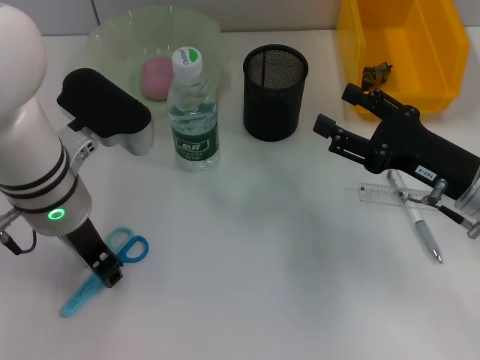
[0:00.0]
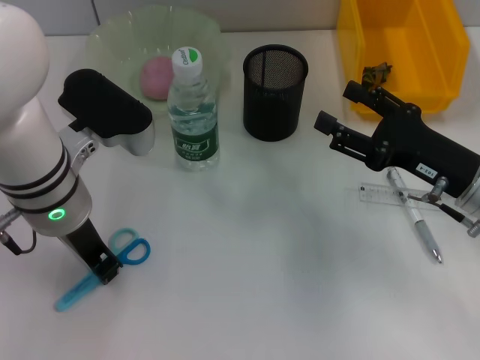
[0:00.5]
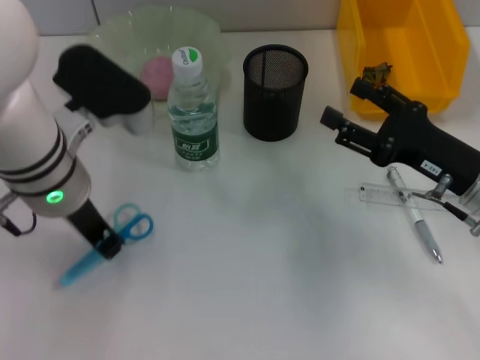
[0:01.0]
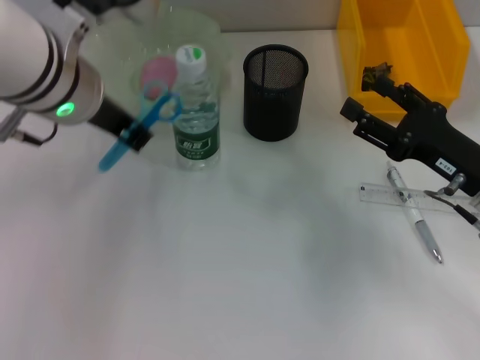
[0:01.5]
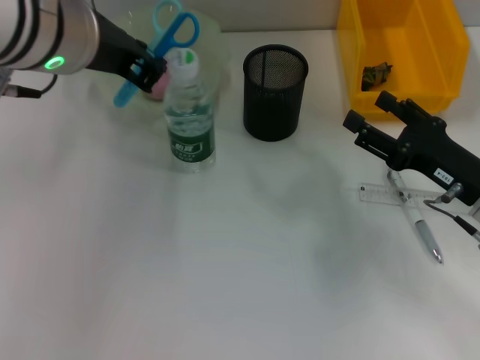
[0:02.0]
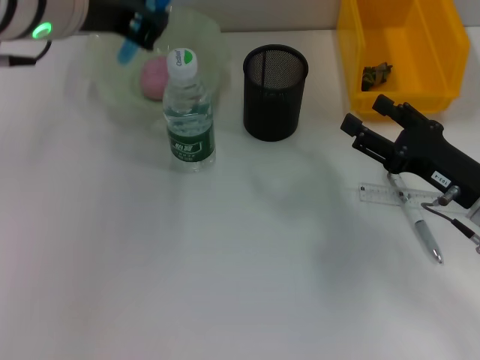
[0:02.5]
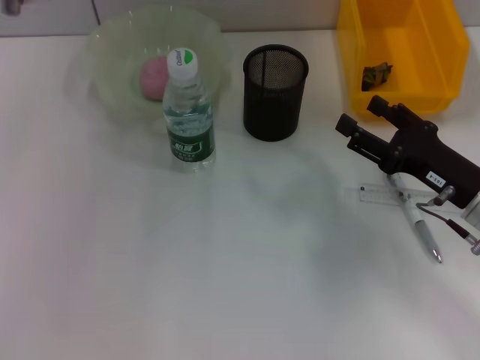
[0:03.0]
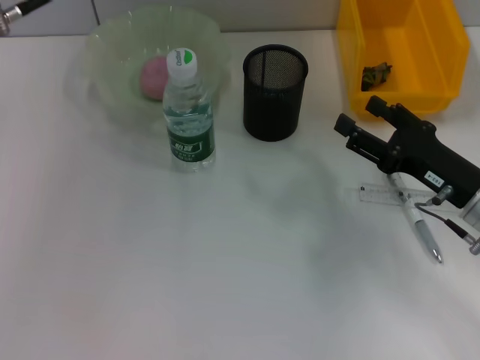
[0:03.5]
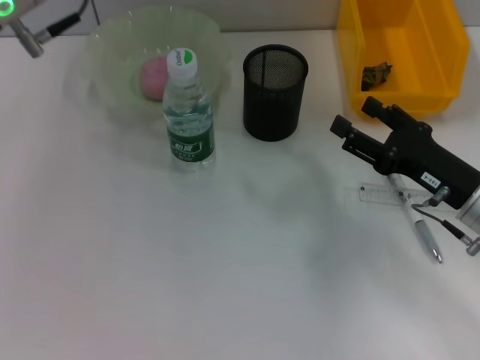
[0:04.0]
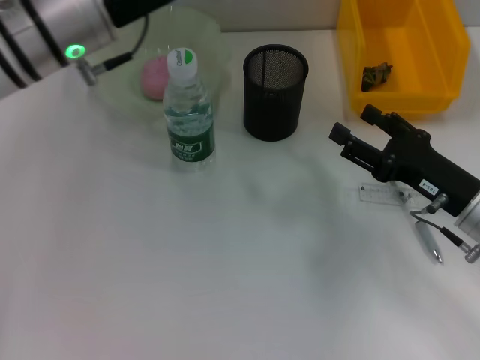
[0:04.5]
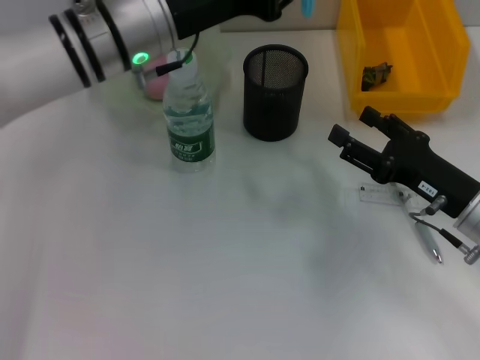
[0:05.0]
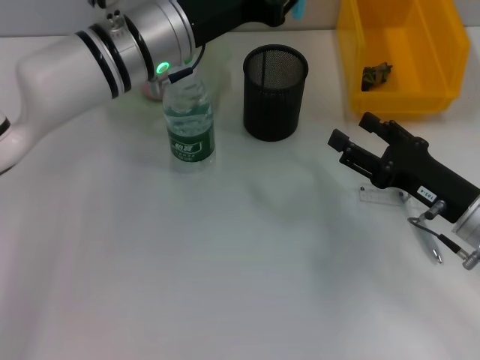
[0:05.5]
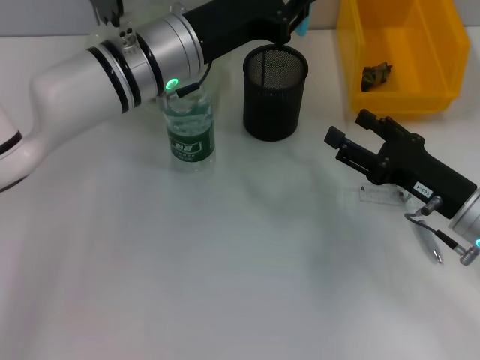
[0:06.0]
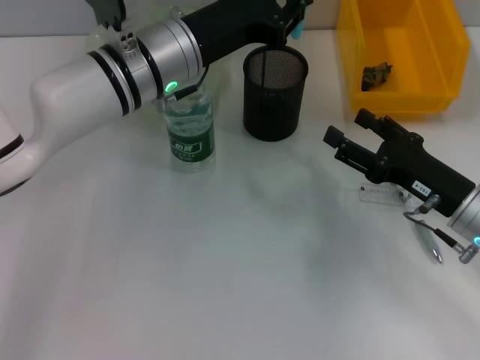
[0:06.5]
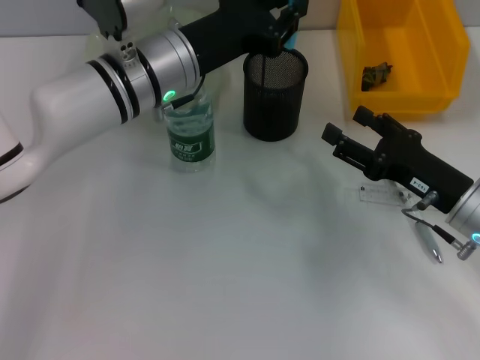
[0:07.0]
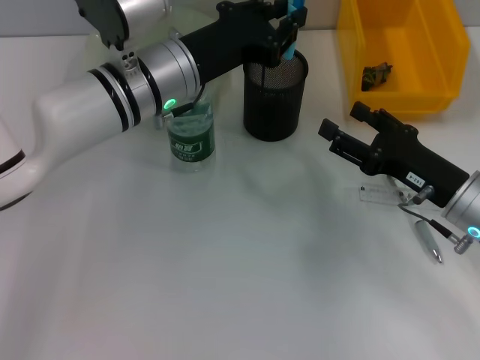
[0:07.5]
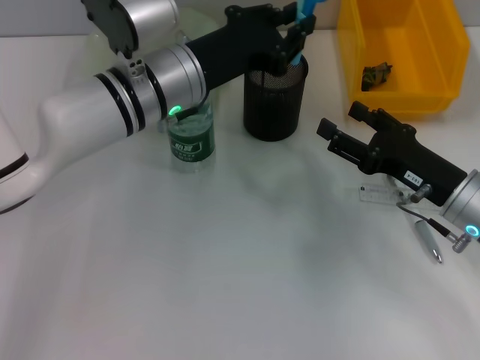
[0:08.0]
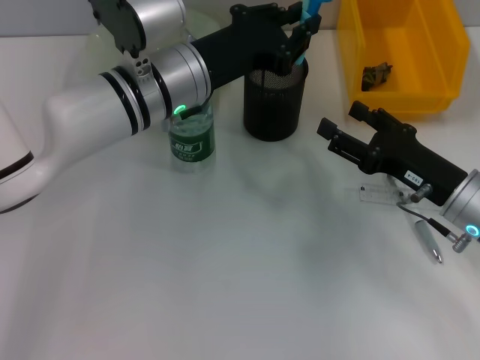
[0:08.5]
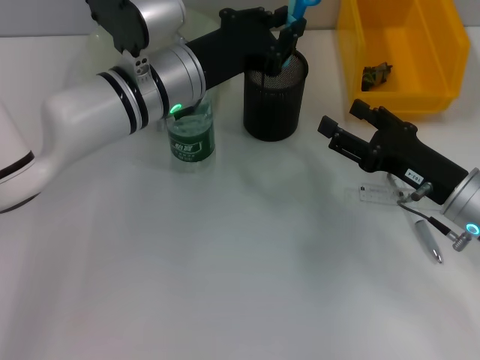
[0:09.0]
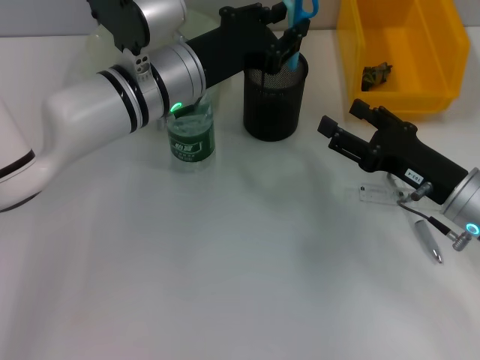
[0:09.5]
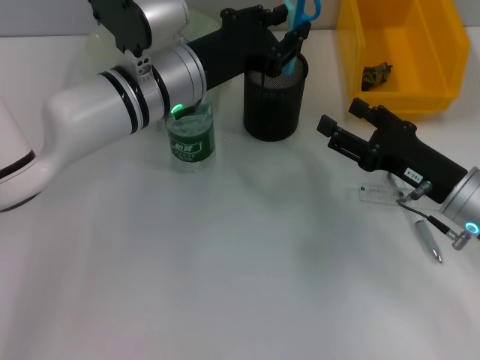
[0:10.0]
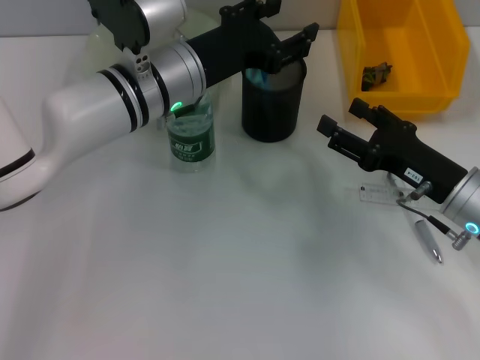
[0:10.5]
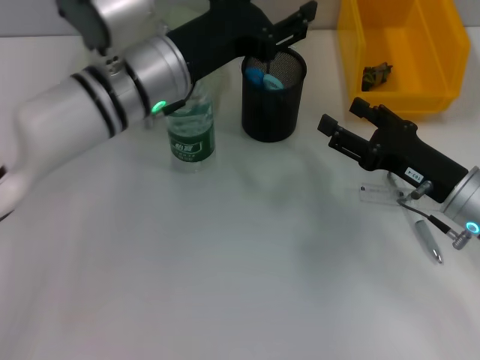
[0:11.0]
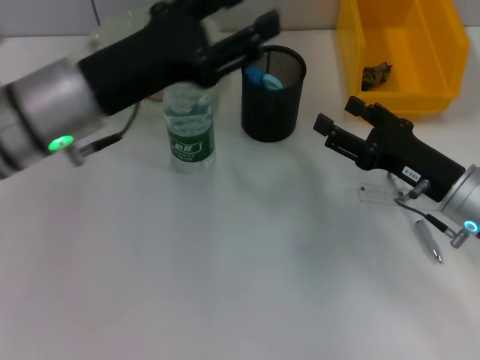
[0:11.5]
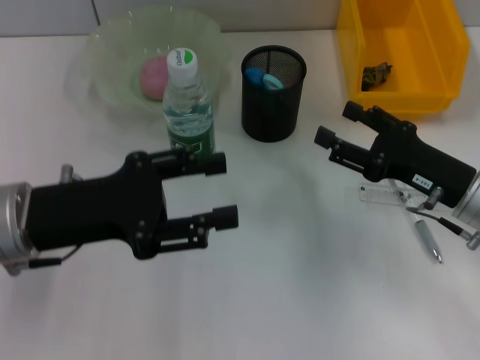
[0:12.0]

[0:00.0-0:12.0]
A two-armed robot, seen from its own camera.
Step, 1.0 to 10.5 s: Place the blue scissors into the pen holder with the left hand.
0.0 to 2.0 s: The left gripper heads upward, covering some 10 cm, and closes its fingers.
2.0 to 4.0 s: The left gripper ends up about 5 cm from where it was.
4.0 to 6.0 s: The left gripper shifts approximately 15 cm downward and to the right.
6.0 to 8.0 s: There are only small adjustments of the grippers.
8.0 to 10.0 s: Both grippers stay put.
10.0 to 12.0 s: The left gripper heads backward and to the left, covering some 20 cm, and opens up.

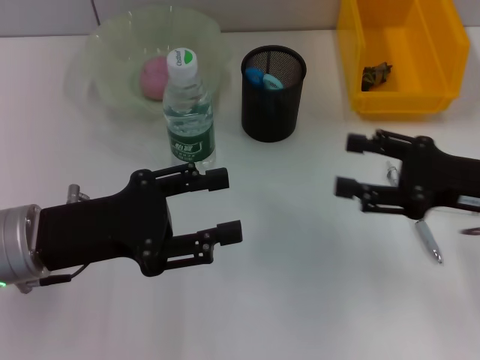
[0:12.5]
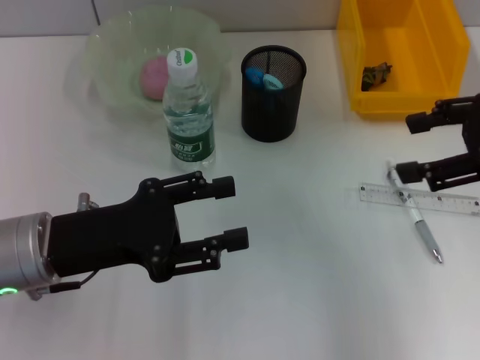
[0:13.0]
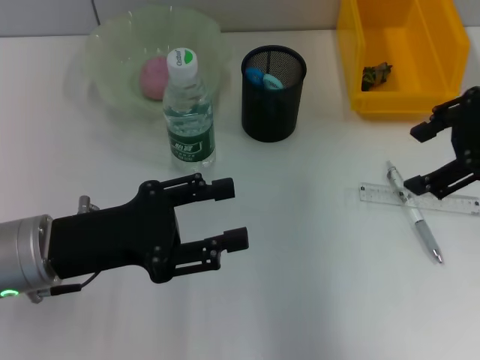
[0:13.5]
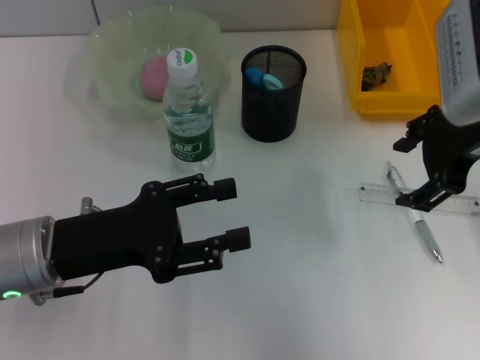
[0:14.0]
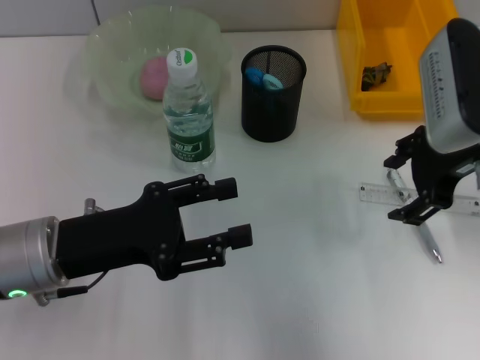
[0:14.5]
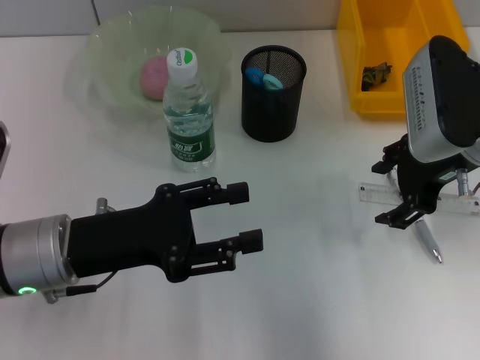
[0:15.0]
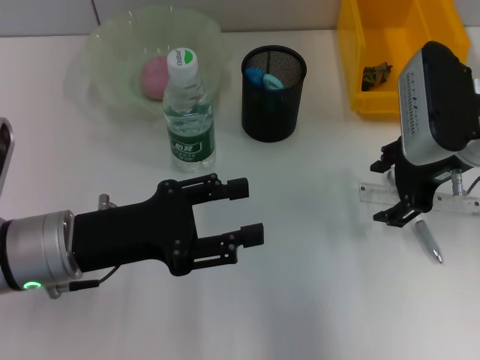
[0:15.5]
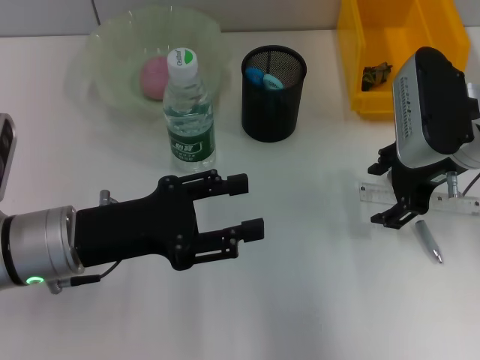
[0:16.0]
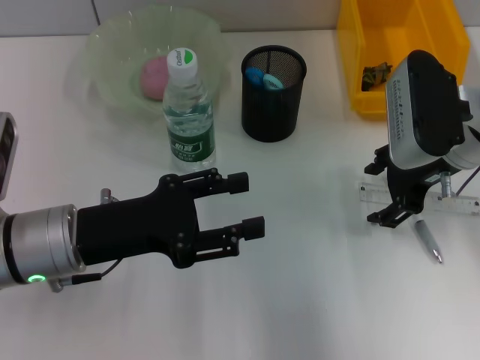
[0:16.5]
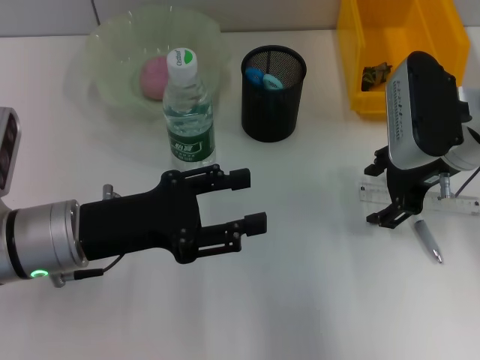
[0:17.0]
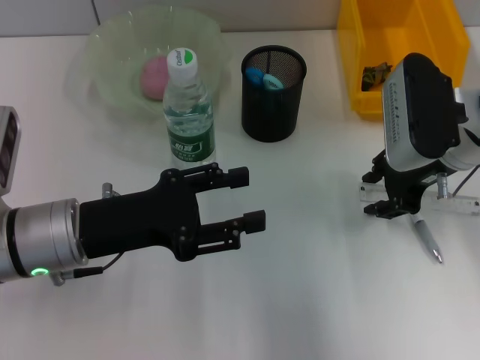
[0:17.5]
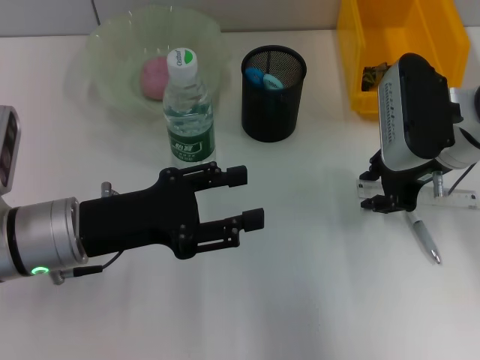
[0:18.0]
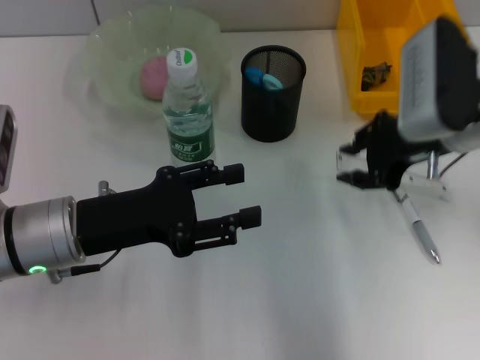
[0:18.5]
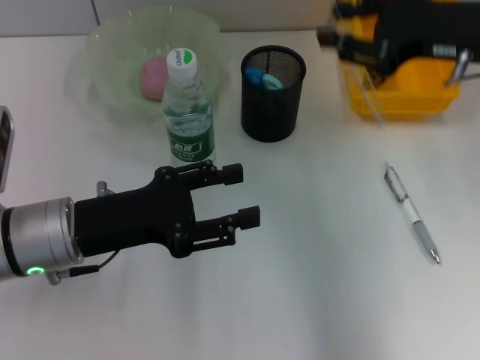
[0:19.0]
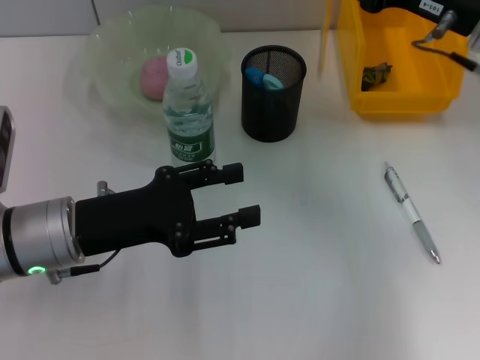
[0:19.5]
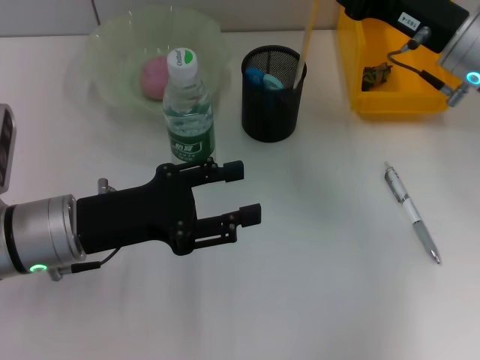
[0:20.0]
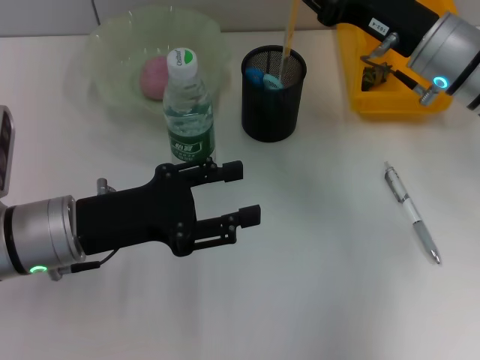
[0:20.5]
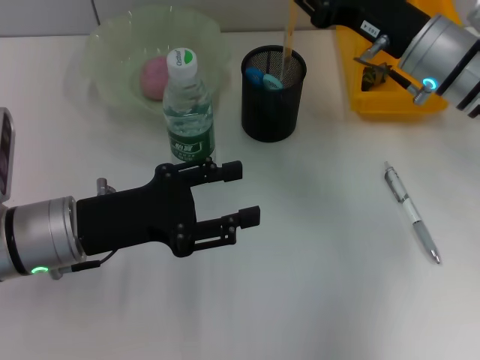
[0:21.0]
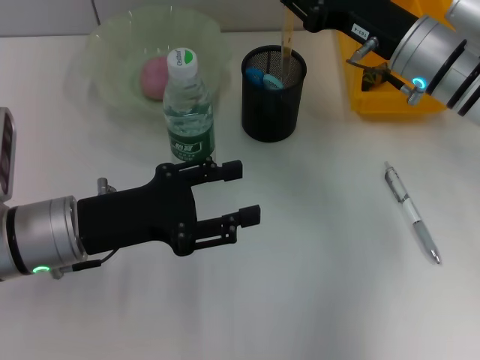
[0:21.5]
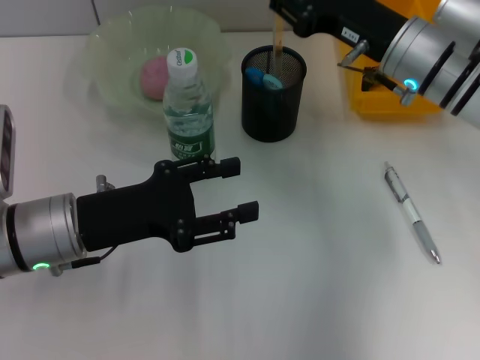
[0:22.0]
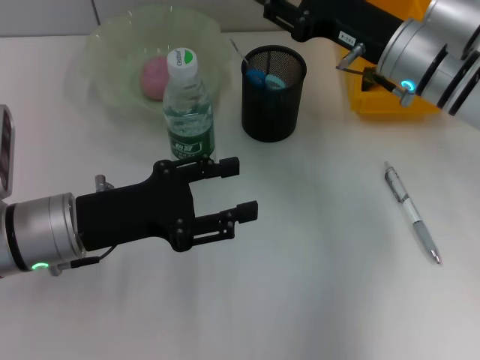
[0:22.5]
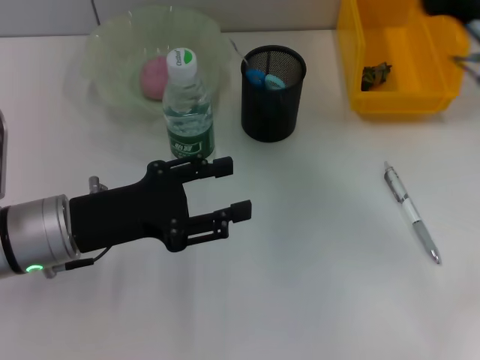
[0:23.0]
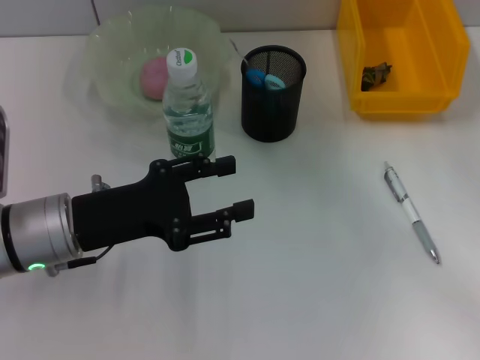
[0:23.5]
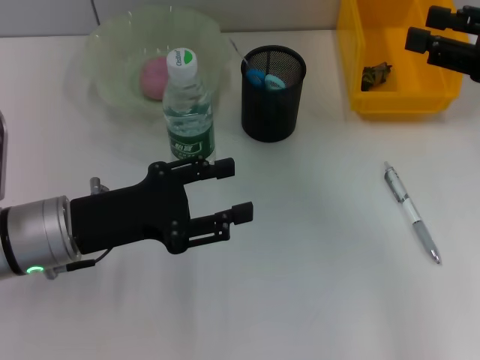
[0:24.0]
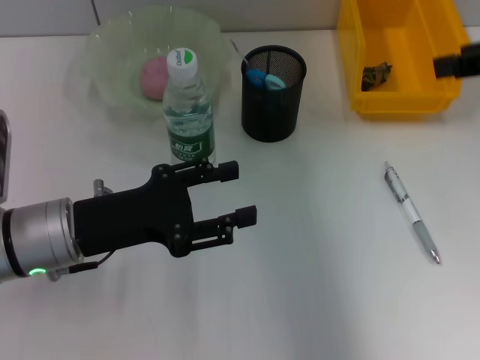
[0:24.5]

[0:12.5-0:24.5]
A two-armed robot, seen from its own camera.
Step, 12.5 to 17.5 s: Grab the ruler with the right hand.
Step, 18.5 to 22.0 s: Place the ruler into the pen holder with the right hand.
12.5 to 14.5 s: The right gripper is displaced upward, forward and to the left by about 10 cm.
14.5 to 16.5 s: There are only small adjustments of the grippers.
16.5 to 18.5 s: The right gripper closes.
18.5 to 20.5 s: The right gripper reaches approximately 5 cm upward, then returns.
20.5 to 22.5 s: The grippers make only small movements.
22.5 to 24.5 s: The right gripper shifts approximately 20 cm upward, to the right and backward.

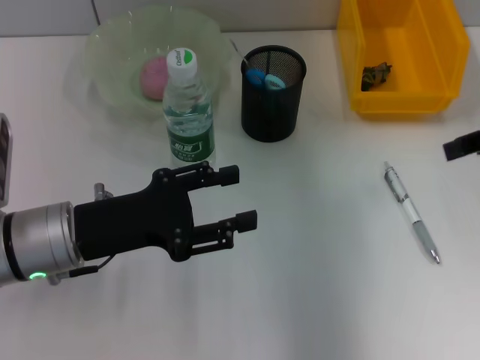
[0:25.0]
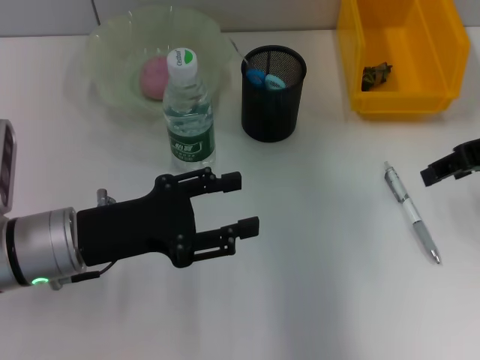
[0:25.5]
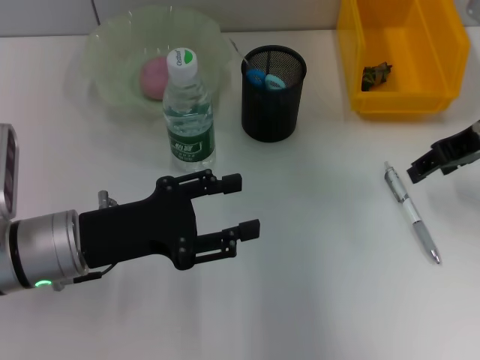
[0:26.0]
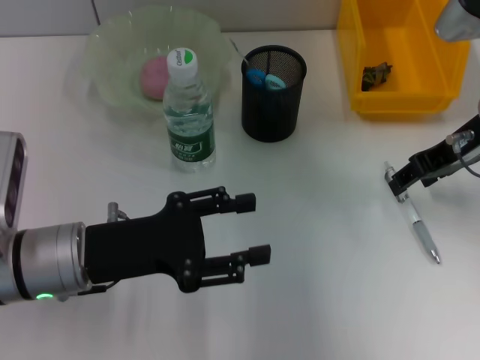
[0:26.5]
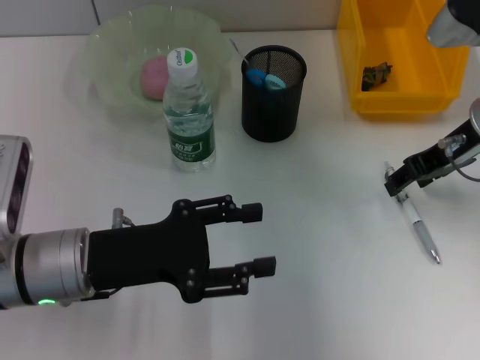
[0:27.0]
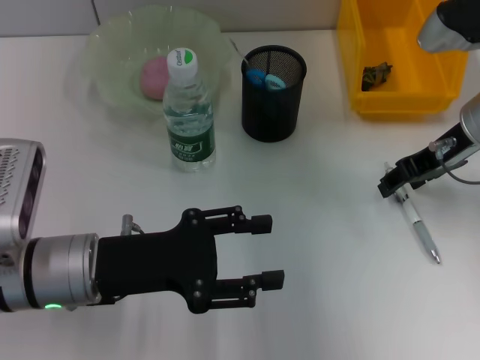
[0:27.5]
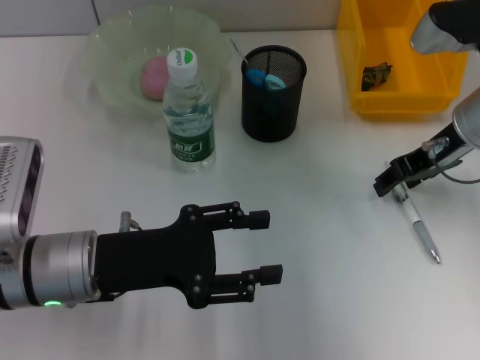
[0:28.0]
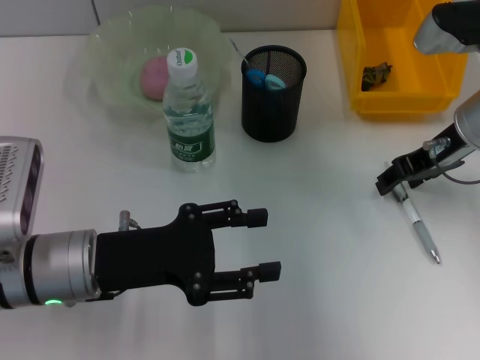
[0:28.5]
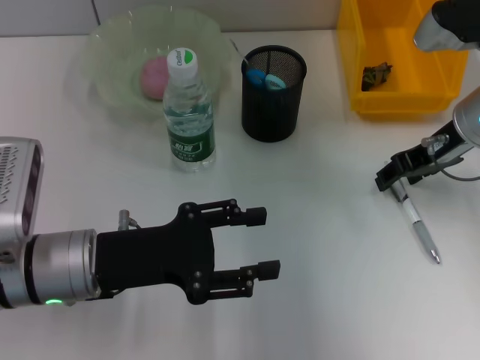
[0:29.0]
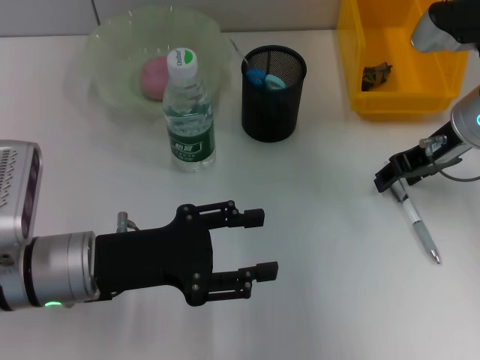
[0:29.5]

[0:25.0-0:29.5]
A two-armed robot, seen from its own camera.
25.0 to 27.0 s: The right gripper is displaced downward, forward and to the left by roughly 10 cm.
27.0 to 29.5 s: The grippers make only small movements.
